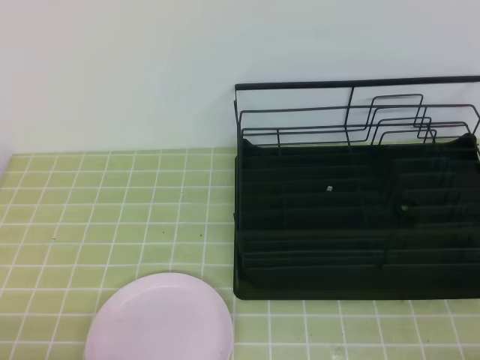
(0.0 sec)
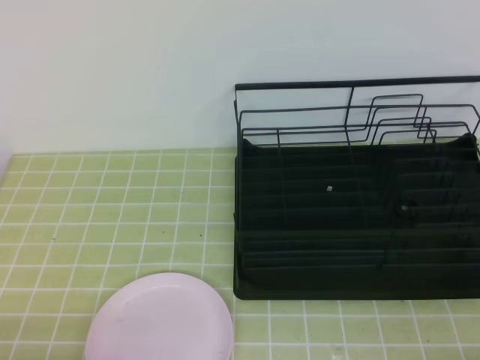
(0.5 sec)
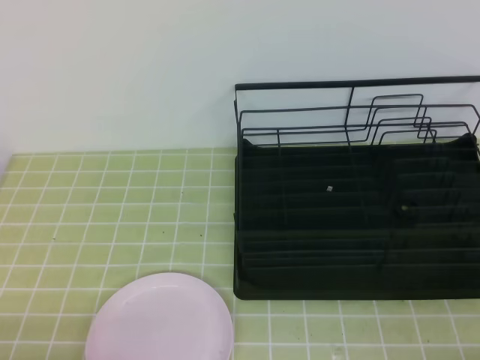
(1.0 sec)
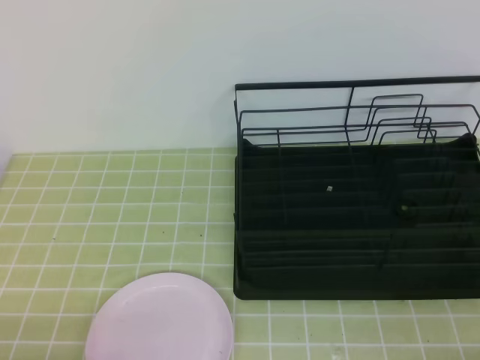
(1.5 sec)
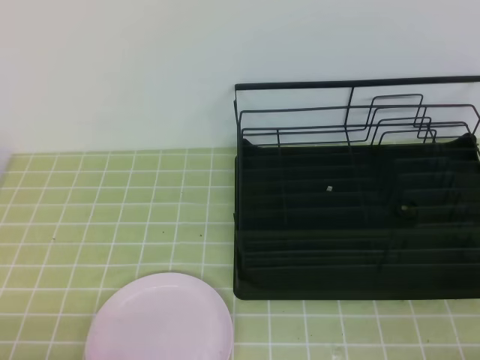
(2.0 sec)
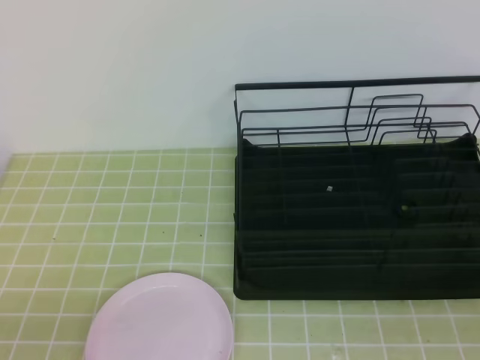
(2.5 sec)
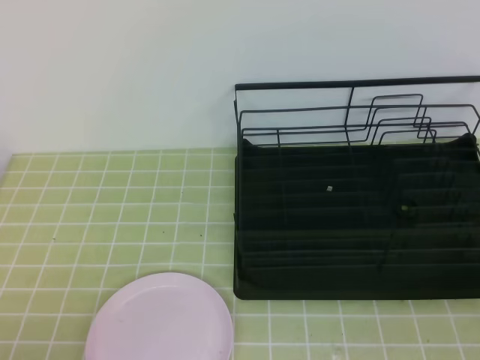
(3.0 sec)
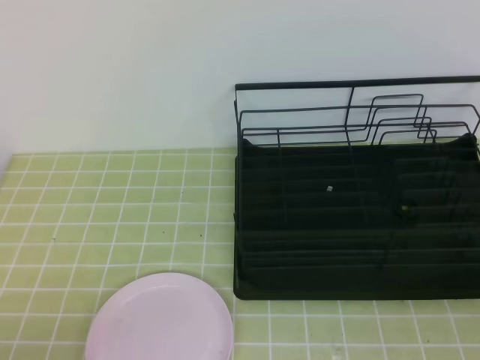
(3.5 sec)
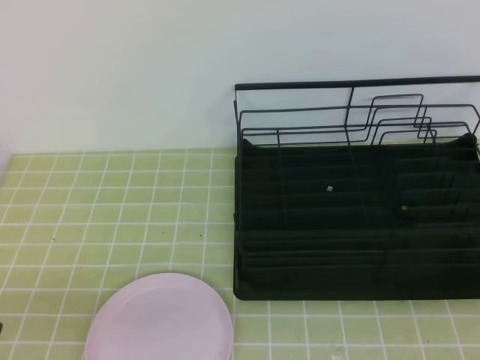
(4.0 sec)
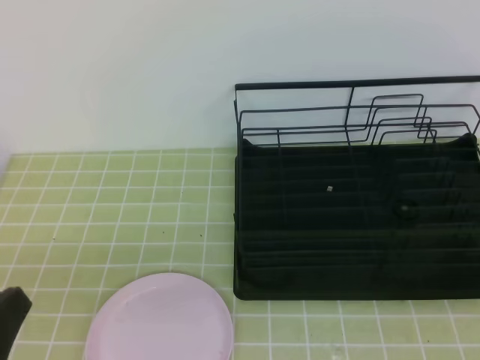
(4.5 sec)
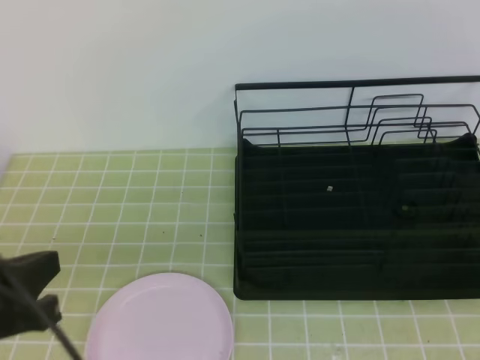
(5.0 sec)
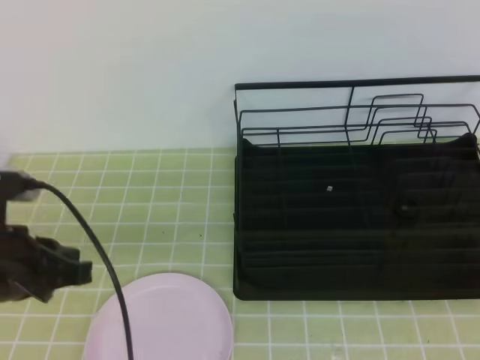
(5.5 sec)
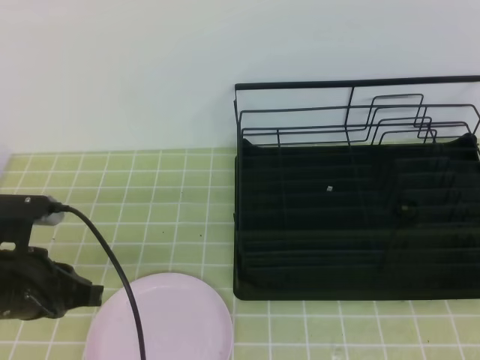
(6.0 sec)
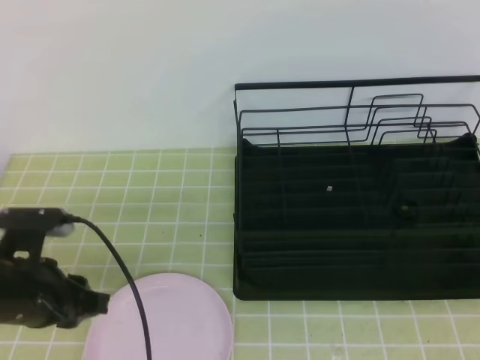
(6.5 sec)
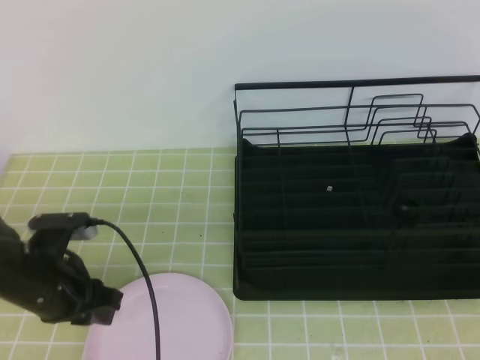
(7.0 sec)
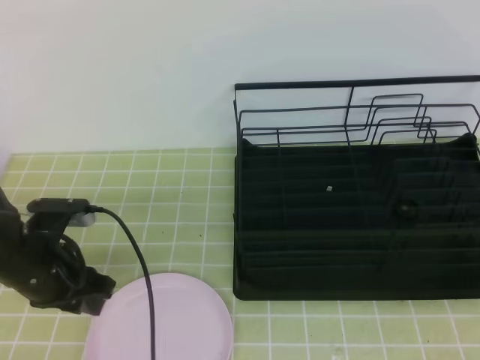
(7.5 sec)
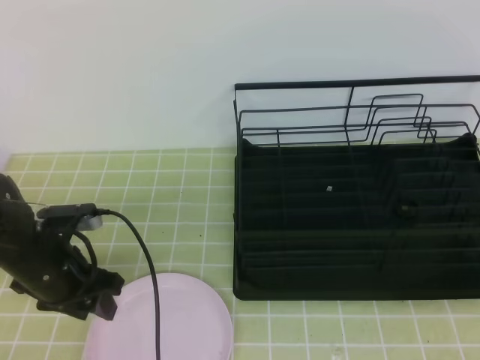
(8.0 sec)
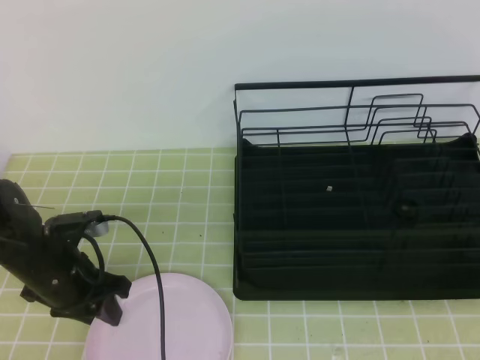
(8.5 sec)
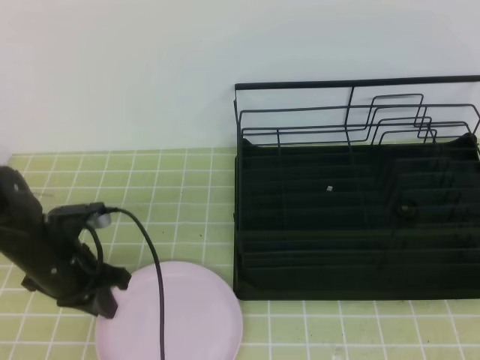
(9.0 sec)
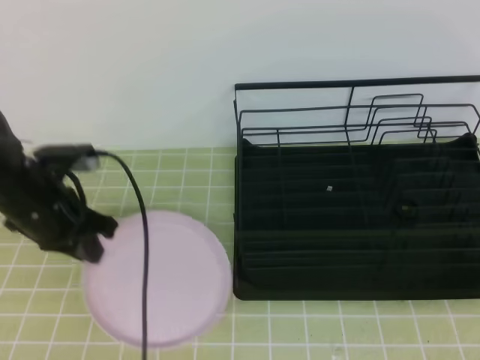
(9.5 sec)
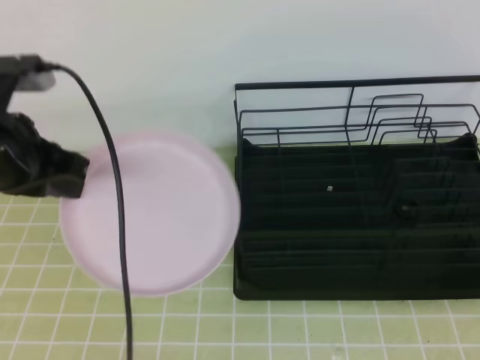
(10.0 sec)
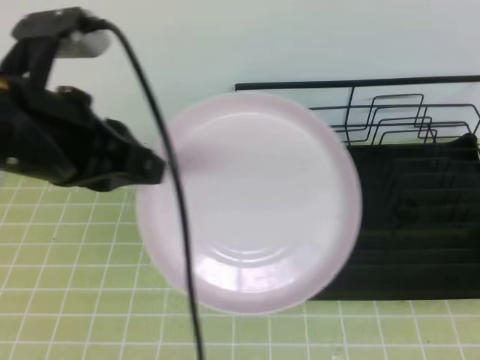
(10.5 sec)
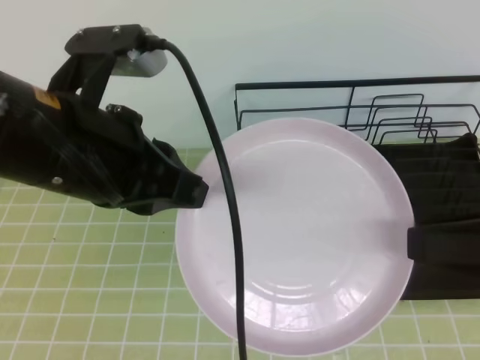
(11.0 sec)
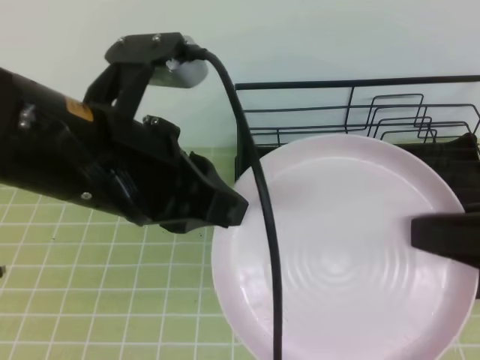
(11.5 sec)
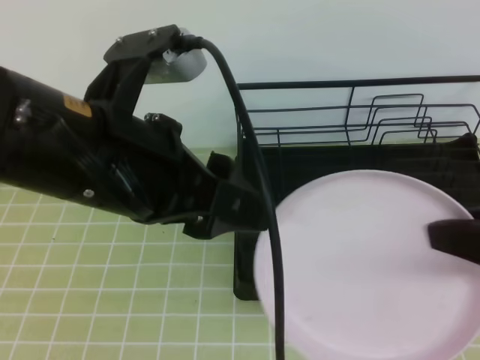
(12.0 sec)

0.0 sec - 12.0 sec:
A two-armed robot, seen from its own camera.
0.0 sec - 2.0 sec: Both grippers stay about where they are.
4.0 sec - 6.0 sec: The left gripper heads forward, covering some 20 cm.
6.0 sec - 8.0 sec: The left gripper heads forward and downward, covering roughly 10 cm, and opens up.
8.0 sec - 10.0 sec: The left gripper goes about 15 cm upward, and closes its fingers.
10.0 sec - 12.0 sec: The right gripper is displaced forward by approximately 10 cm, and opens and closes again, while the left gripper goes approximately 15 cm to the right, backward and upward, and opens.

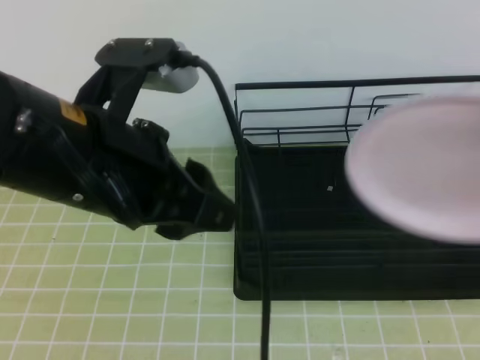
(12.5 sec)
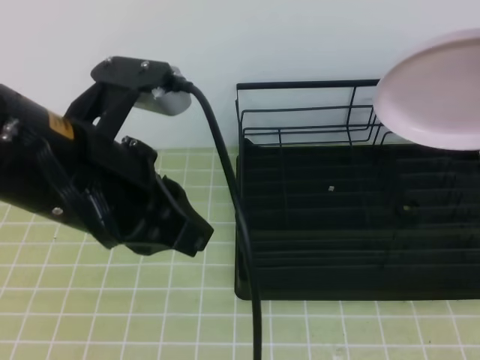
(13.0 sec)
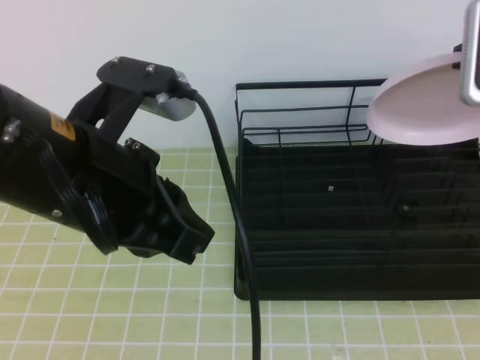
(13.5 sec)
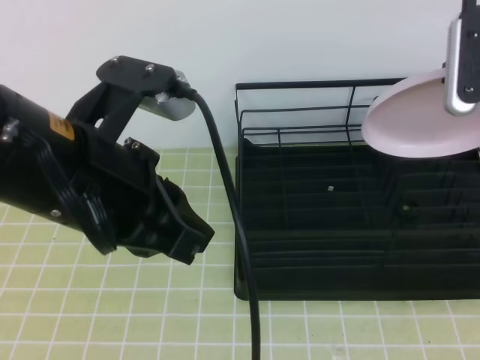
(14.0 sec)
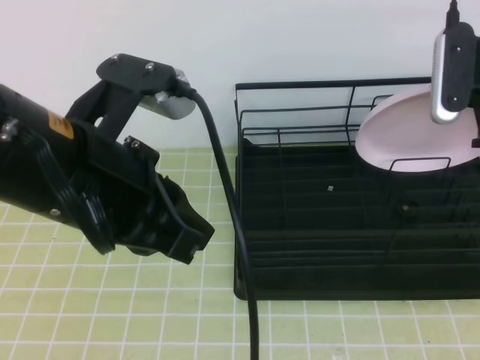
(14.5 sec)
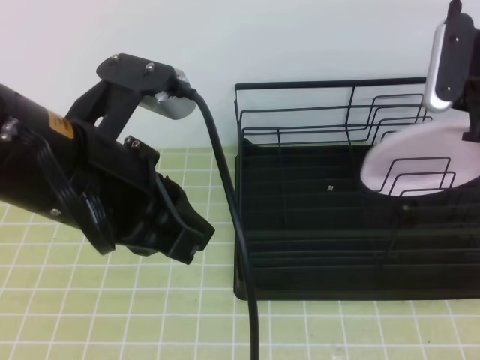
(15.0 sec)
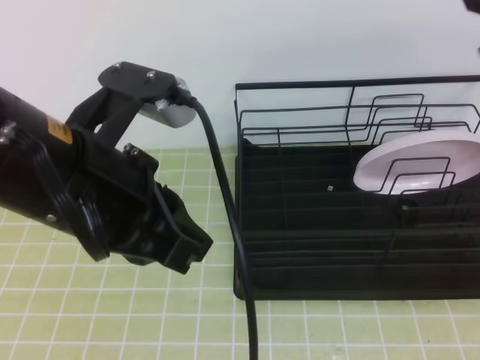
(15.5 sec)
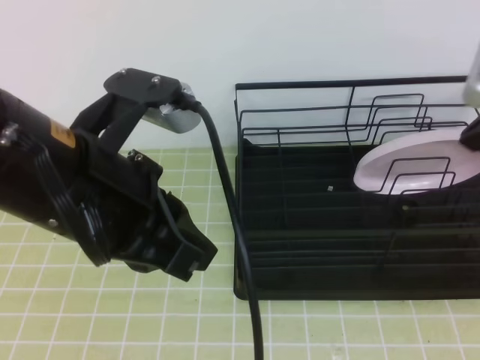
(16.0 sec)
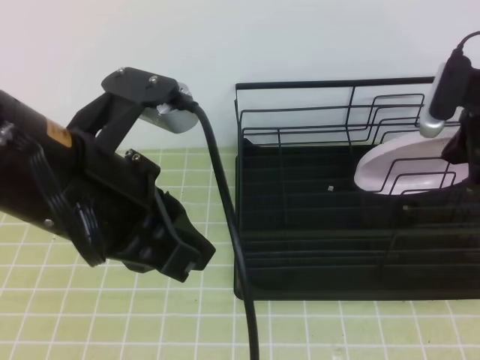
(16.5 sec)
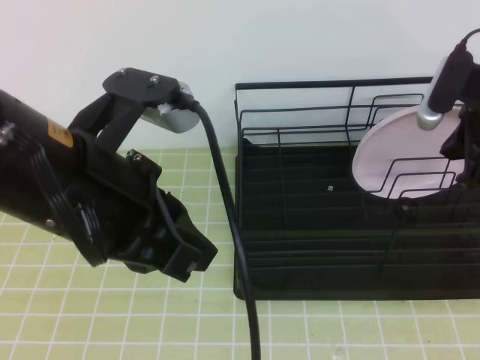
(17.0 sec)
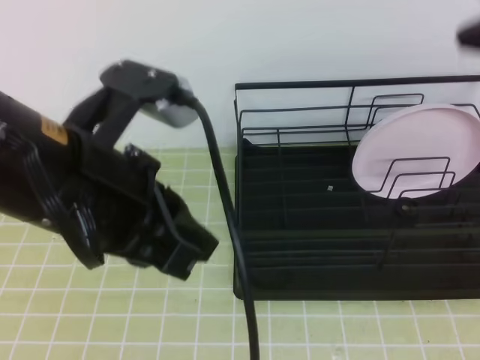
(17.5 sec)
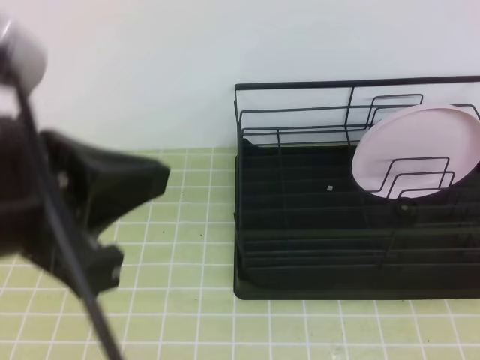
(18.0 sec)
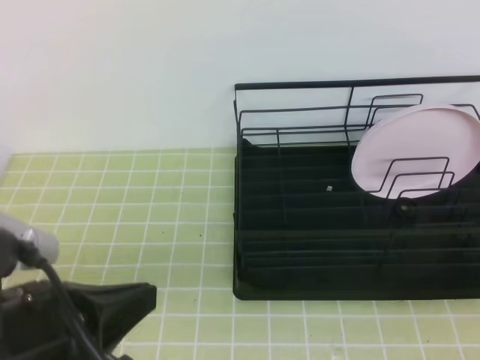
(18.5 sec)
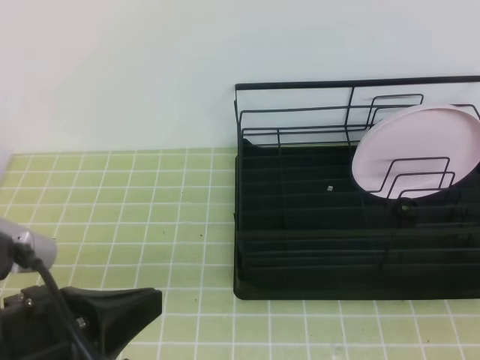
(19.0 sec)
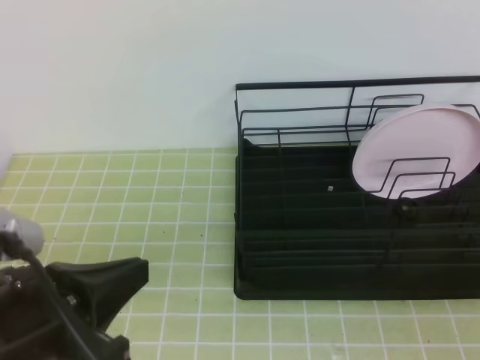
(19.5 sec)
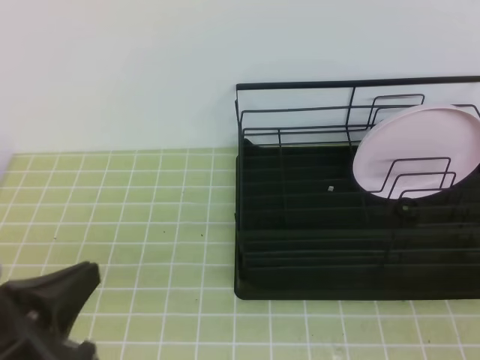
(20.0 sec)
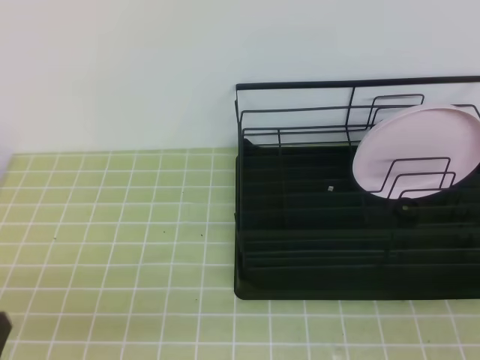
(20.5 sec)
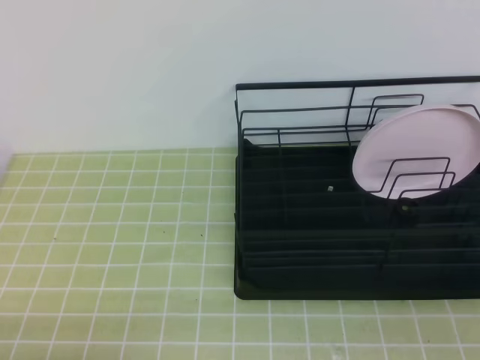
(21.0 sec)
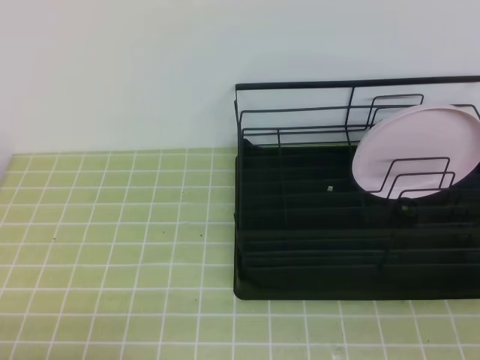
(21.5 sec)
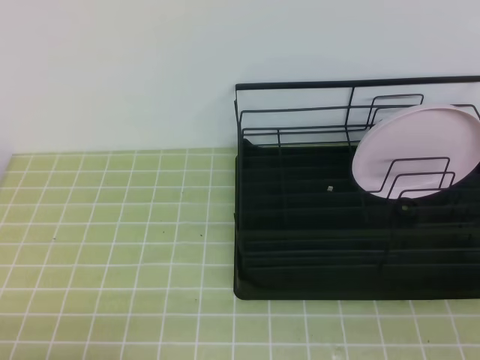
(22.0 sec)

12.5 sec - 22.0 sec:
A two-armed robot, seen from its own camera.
12.5 sec - 14.5 sec: The right gripper moves forward, some 15 cm. The left gripper closes.
14.5 sec - 16.5 sec: The right gripper opens, then closes once more.
16.5 sec - 18.0 sec: The right gripper heads backward and upward, covering about 30 cm. The left gripper ends up about 5 cm from where it was.
18.0 sec - 20.0 sec: The right gripper travels downward by about 25 cm; the left gripper travels downward by about 15 cm.
20.0 sec - 22.0 sec: The left gripper heads downward, backward and to the left, covering approximately 15 cm.
